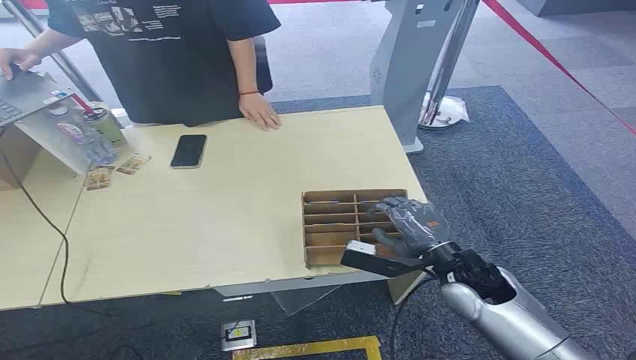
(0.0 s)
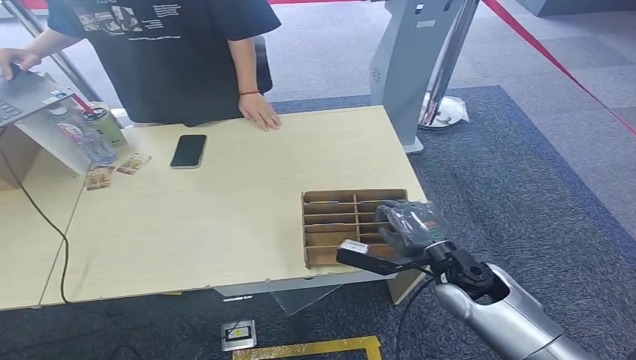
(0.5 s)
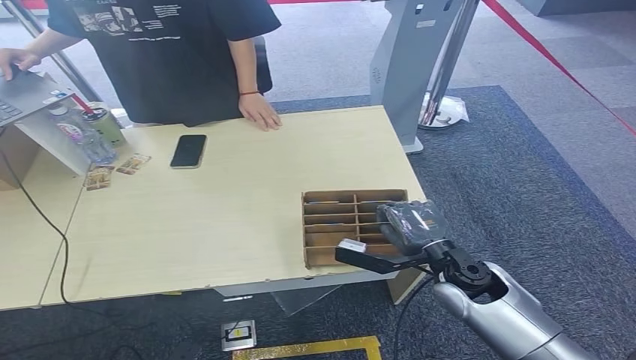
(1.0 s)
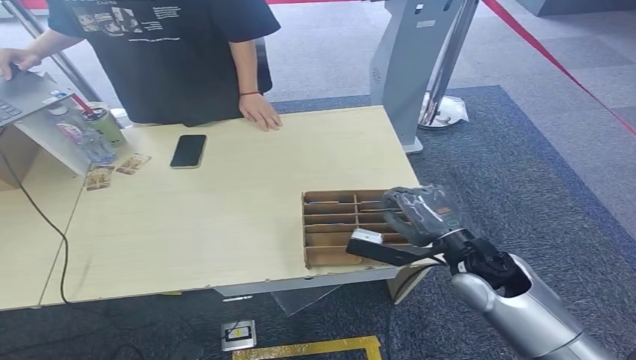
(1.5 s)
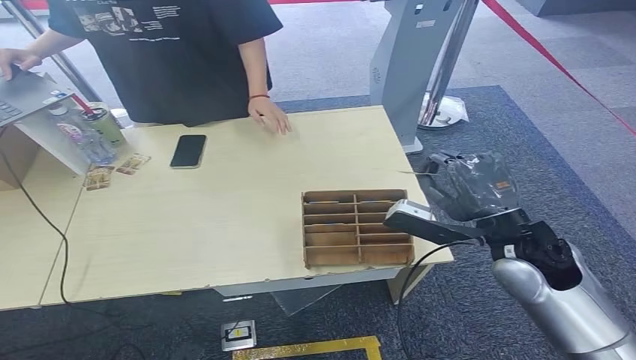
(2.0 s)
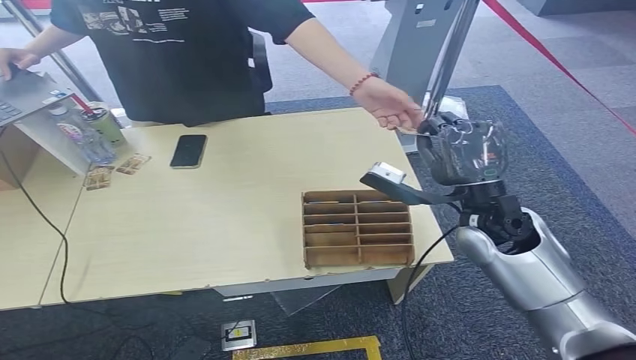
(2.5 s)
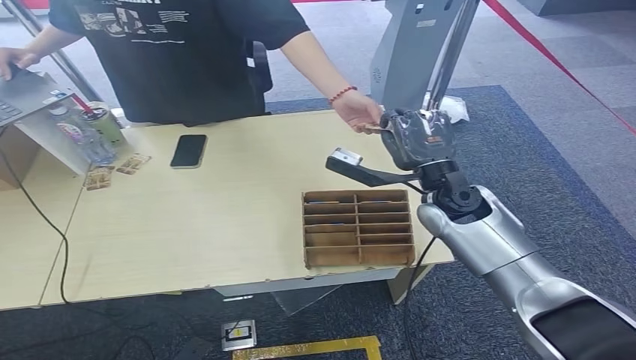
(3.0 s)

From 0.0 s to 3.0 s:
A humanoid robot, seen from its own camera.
Step, from 0.0 s to 1.5 s: Pick up the key card from the card box.
Step, from 2.0 s to 3.0 s: Hand the key card to the target.
From 1.5 s to 3.0 s: The right hand is displaced forward and upward by about 10 cm.
